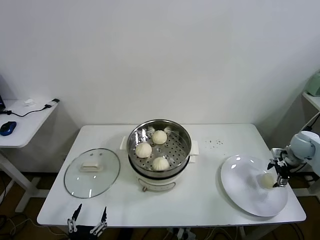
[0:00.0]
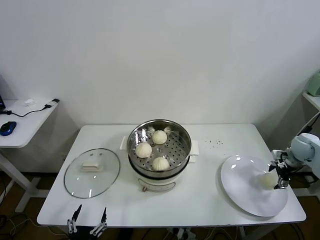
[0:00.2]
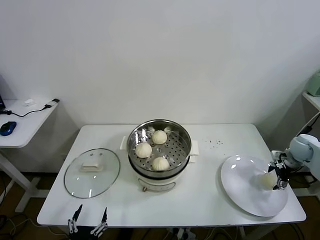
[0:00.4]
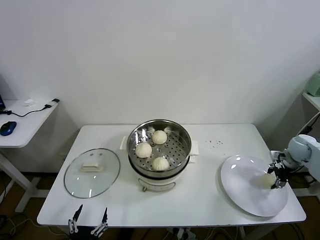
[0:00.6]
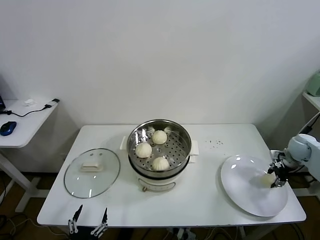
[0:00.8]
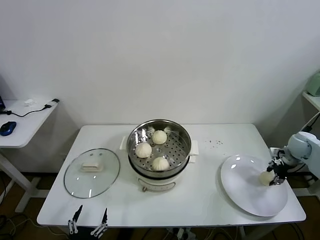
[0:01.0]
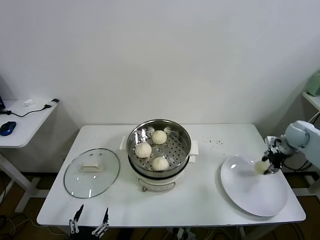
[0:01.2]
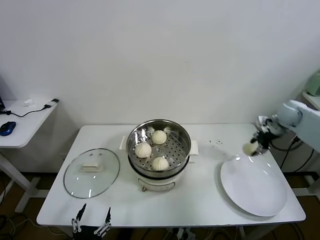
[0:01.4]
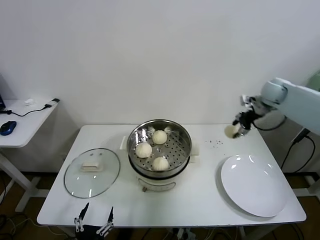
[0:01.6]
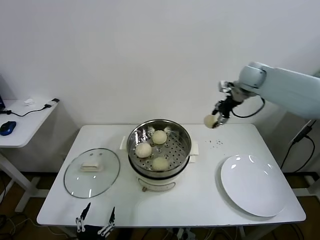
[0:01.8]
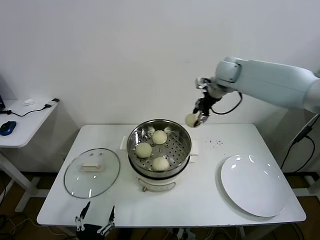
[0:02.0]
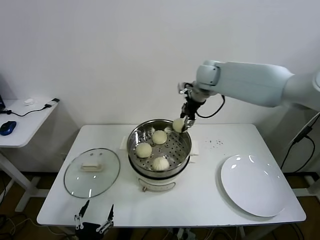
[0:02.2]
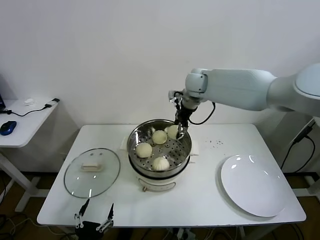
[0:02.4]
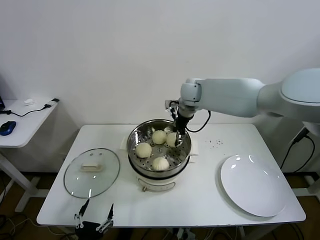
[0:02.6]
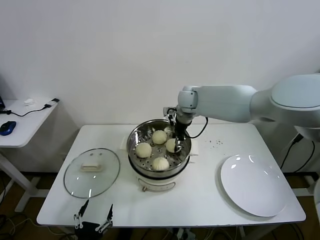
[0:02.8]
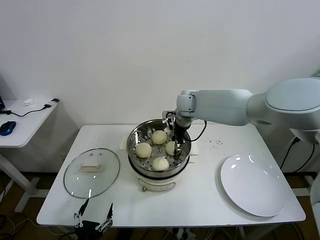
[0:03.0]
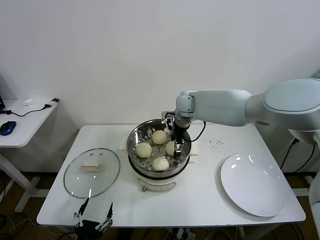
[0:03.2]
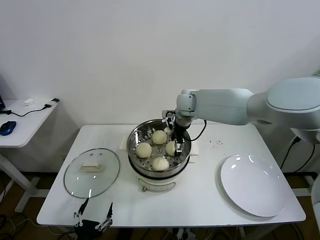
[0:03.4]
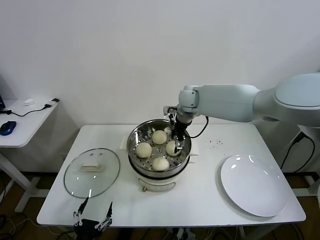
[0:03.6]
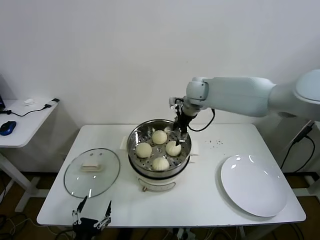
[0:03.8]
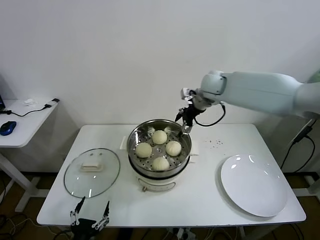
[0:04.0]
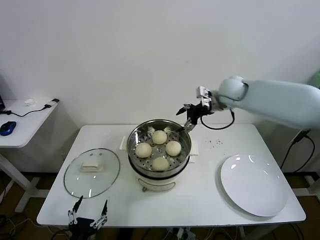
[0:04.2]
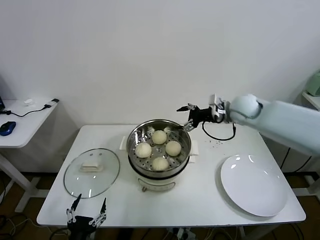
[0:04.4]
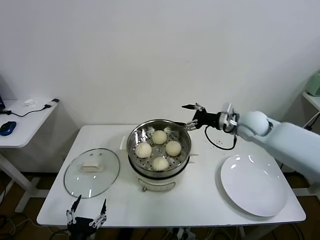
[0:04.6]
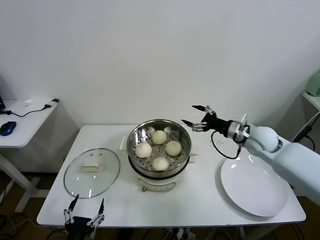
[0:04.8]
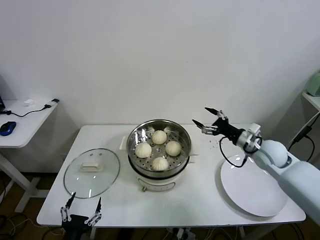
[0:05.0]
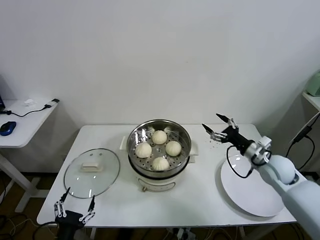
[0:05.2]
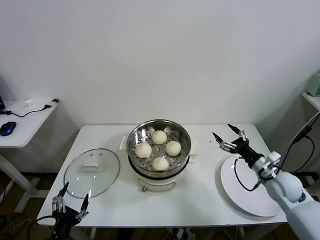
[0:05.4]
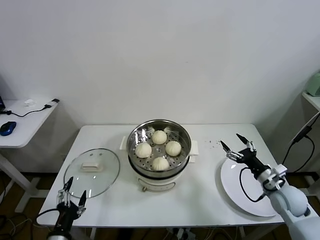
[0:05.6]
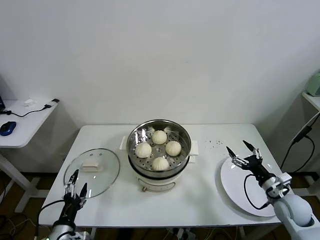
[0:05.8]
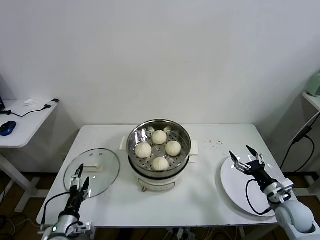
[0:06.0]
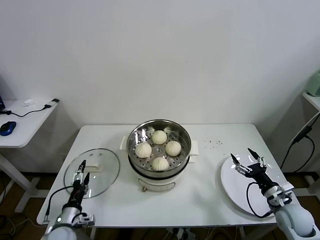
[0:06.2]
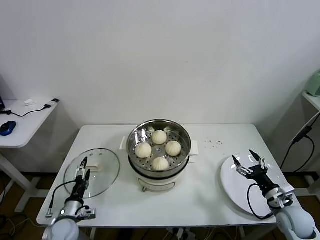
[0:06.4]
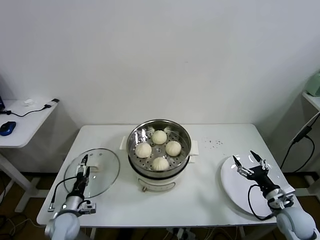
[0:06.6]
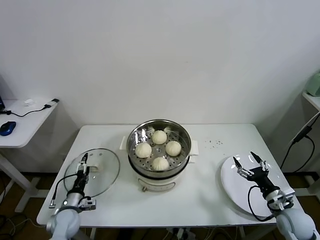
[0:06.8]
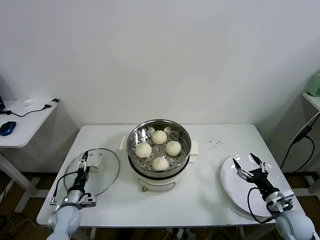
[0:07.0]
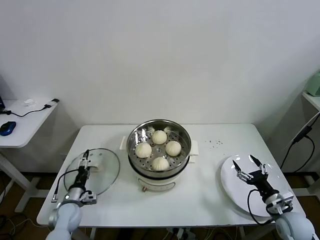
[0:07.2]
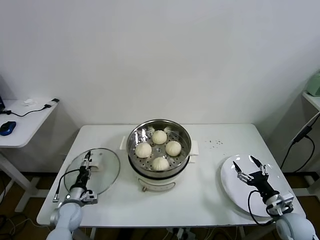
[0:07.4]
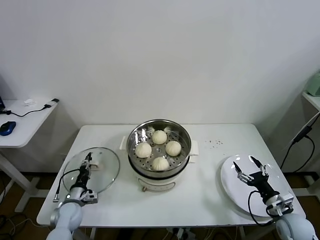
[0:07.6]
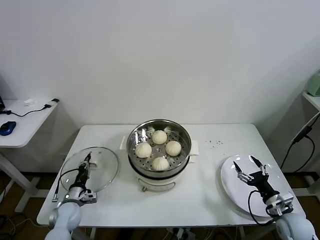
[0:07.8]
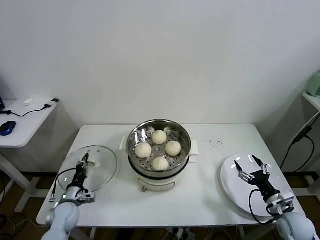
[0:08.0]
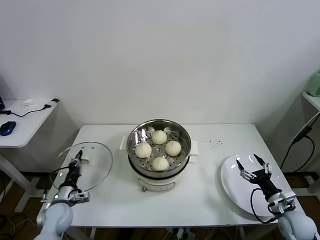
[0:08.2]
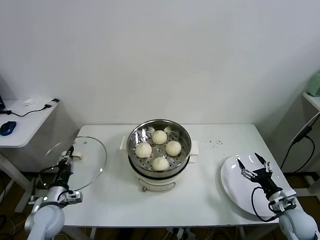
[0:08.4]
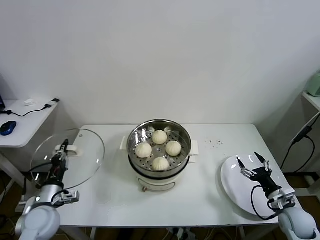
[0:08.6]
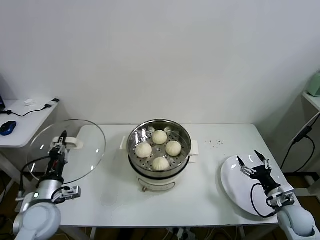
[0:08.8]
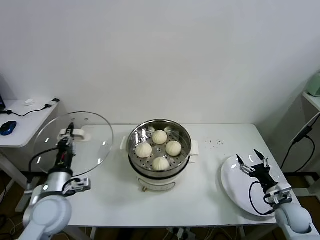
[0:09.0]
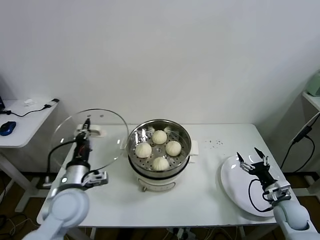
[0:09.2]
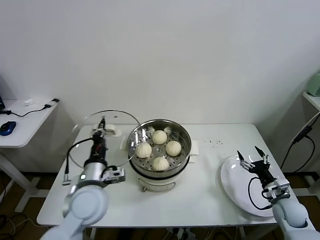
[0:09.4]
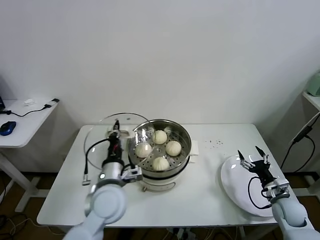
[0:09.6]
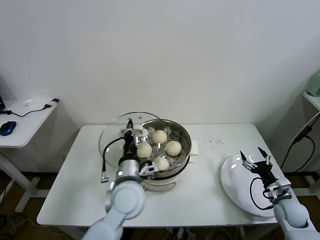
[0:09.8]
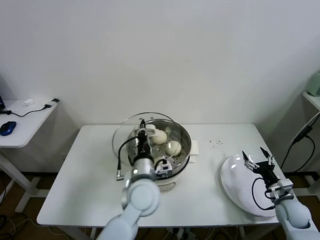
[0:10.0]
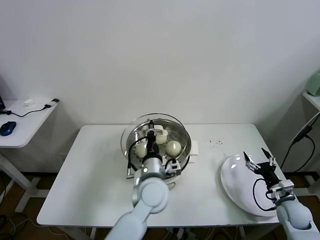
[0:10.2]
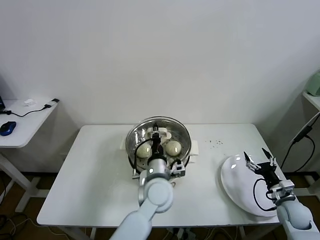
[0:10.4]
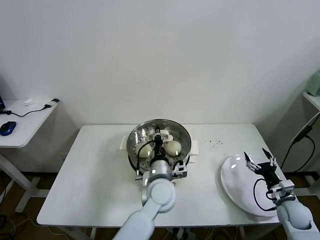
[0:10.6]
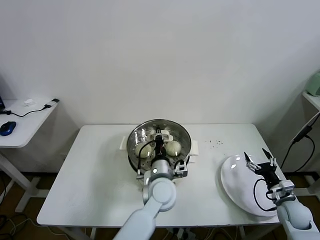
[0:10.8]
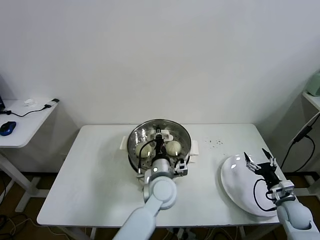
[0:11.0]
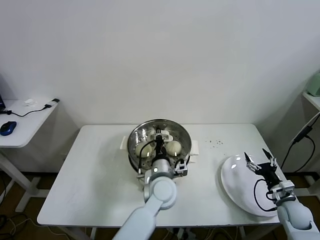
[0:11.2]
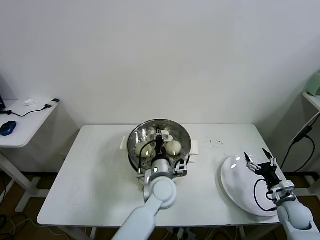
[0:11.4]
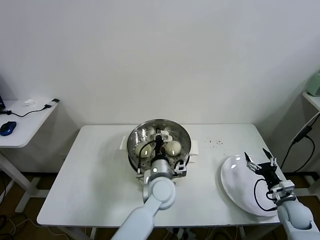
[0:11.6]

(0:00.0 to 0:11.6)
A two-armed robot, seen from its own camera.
Task of the whole recording: take steamed baozi put them in steamer.
Step, 0:00.8 - 0:03.4: Place the baozi on the steamer with right gripper.
Step, 0:03.8 - 0:07.8: Grasp the pot lid with left gripper.
0:00.0 - 0:01.4: The right gripper heads upward, forward and to the left, covering roughly 15 cm, and closes.
0:01.4 - 0:02.8: The right gripper shifts approximately 35 cm to the left.
0:02.8 - 0:04.4: The right gripper goes some 20 cm to the right and backward, and opens its fingers.
0:04.4 - 0:05.8: The right gripper shifts approximately 35 cm backward, downward and to the right, while the left gripper travels forward by some 5 cm.
0:05.8 - 0:07.2: The right gripper moves approximately 5 cm. The left gripper moves forward and downward, some 20 cm.
0:07.2 - 0:08.8: The left gripper travels upward by approximately 15 cm, and closes up.
0:08.8 - 0:10.2: The left gripper heads to the right, covering roughly 30 cm.
0:10.2 - 0:11.6: The left gripper shifts by some 5 cm.

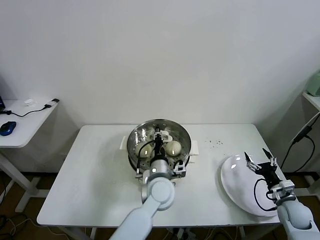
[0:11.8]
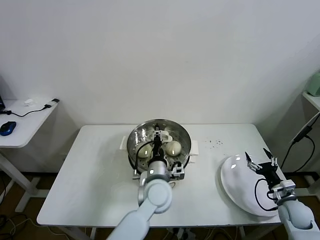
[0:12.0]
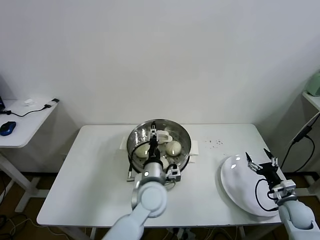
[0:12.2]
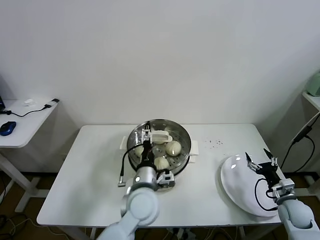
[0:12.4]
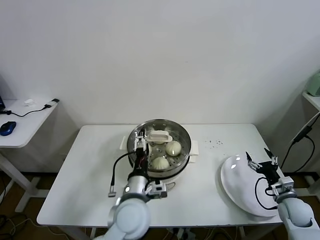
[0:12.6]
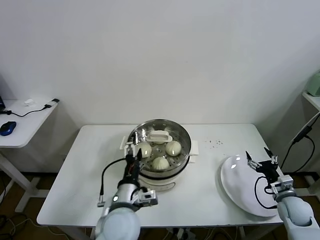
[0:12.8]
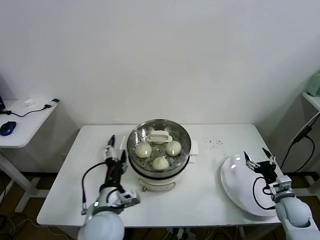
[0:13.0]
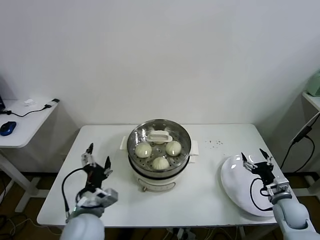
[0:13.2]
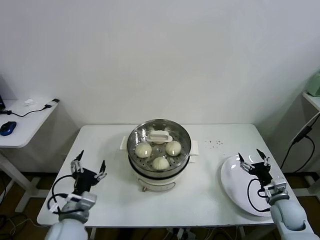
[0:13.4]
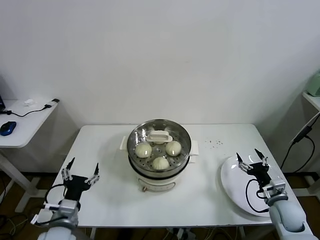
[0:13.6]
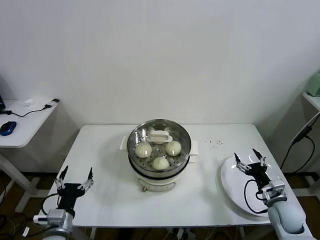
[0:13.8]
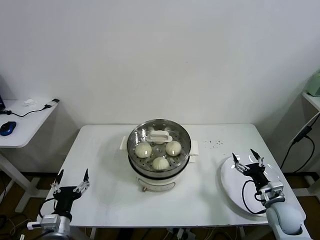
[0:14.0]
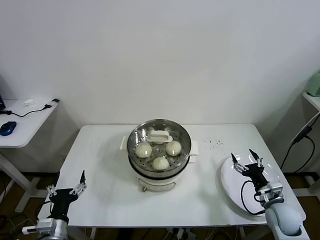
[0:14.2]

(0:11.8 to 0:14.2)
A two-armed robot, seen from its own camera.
Task of the whole recording: take steamed baozi put them in steamer.
0:11.8 - 0:13.0: The left gripper travels to the left and backward by some 15 cm, and opens.
0:13.0 - 0:14.2: The right gripper goes approximately 5 cm to the left; the left gripper travels to the left and downward by approximately 20 cm.

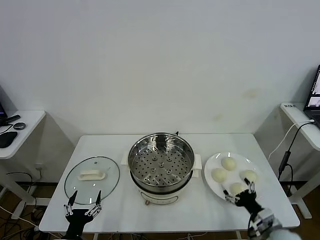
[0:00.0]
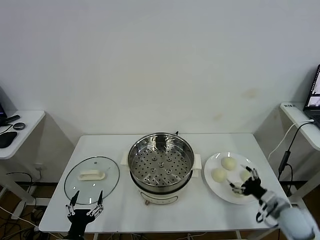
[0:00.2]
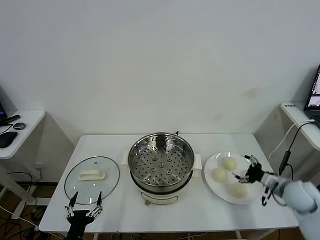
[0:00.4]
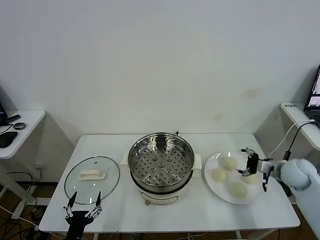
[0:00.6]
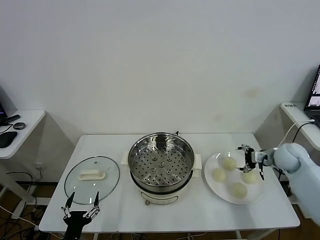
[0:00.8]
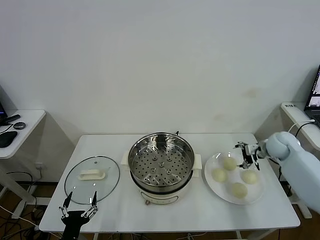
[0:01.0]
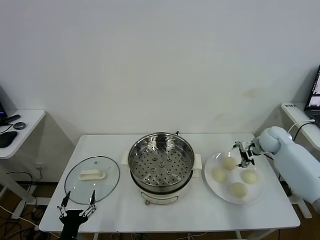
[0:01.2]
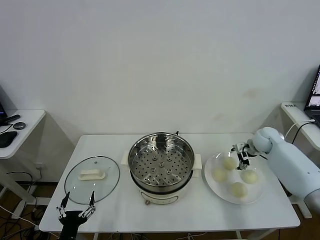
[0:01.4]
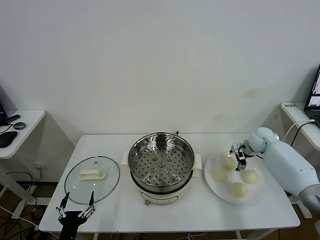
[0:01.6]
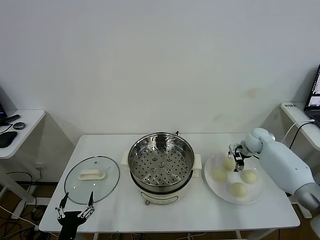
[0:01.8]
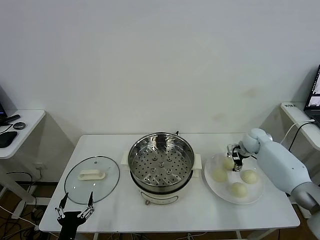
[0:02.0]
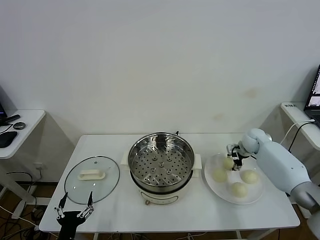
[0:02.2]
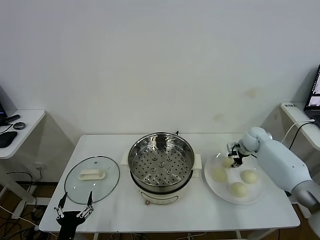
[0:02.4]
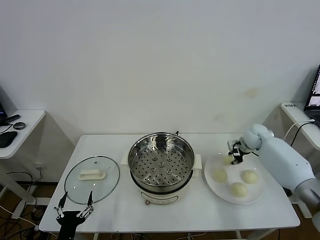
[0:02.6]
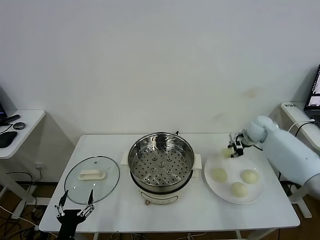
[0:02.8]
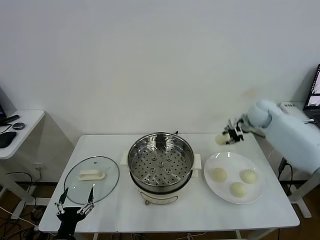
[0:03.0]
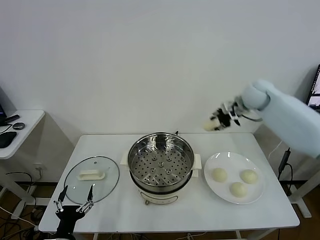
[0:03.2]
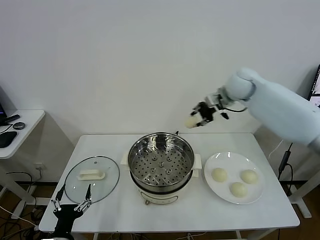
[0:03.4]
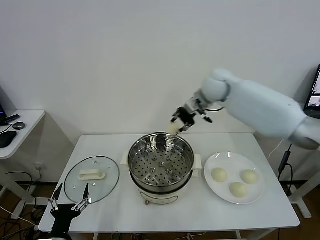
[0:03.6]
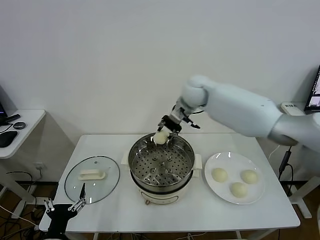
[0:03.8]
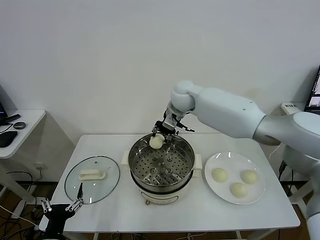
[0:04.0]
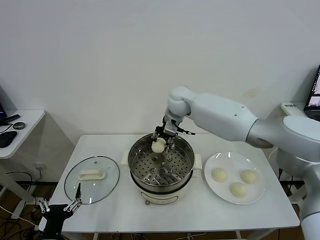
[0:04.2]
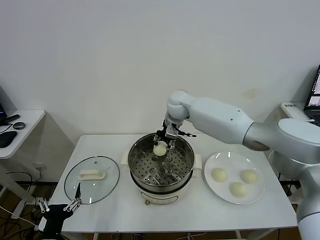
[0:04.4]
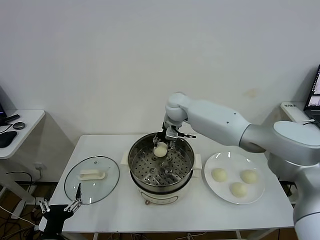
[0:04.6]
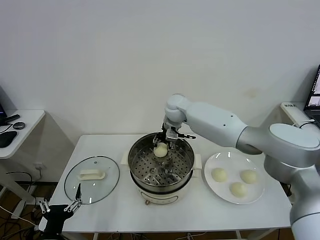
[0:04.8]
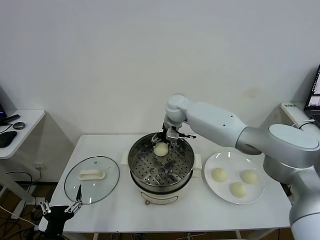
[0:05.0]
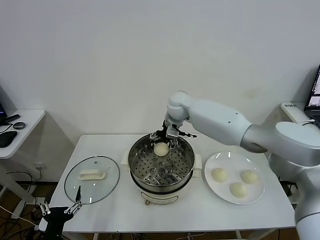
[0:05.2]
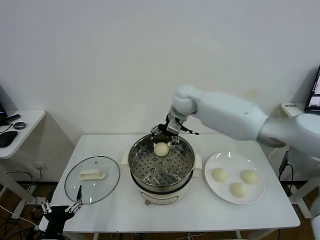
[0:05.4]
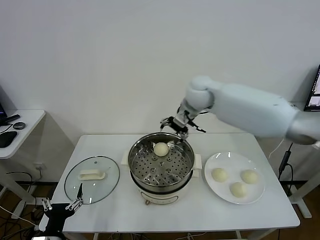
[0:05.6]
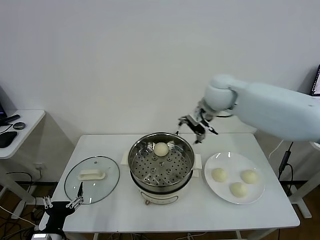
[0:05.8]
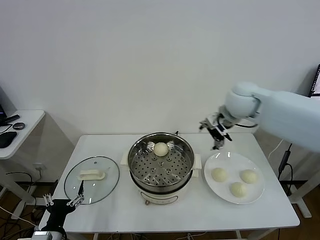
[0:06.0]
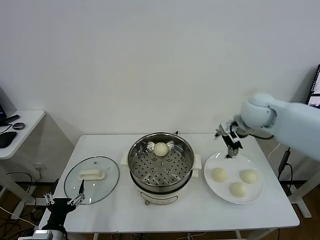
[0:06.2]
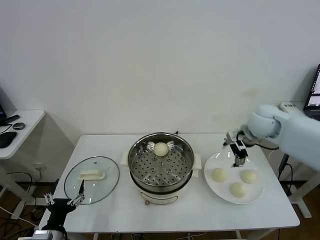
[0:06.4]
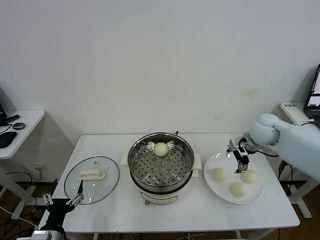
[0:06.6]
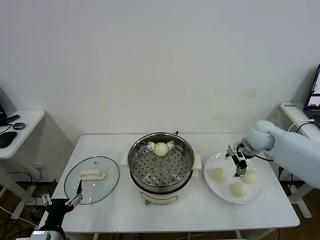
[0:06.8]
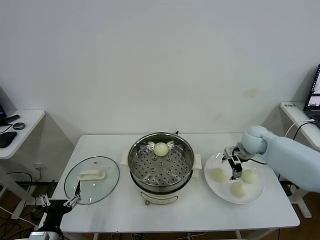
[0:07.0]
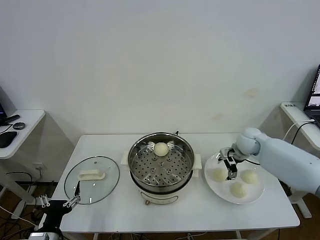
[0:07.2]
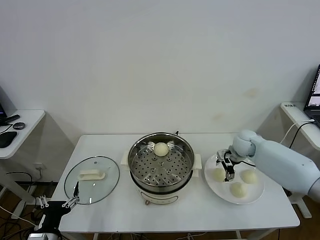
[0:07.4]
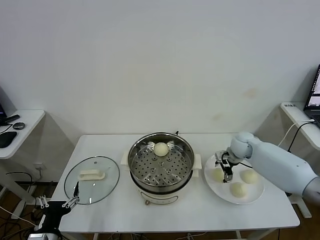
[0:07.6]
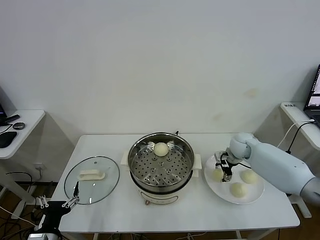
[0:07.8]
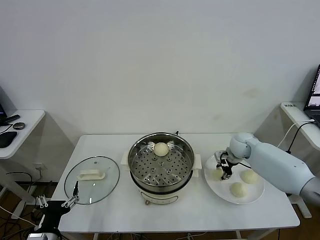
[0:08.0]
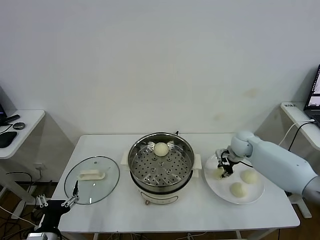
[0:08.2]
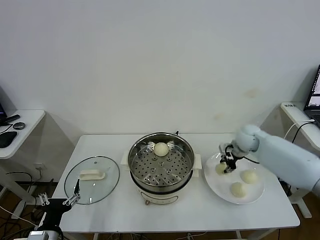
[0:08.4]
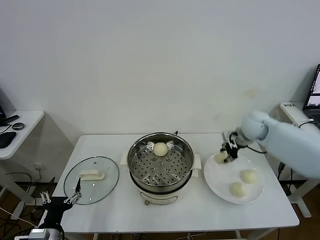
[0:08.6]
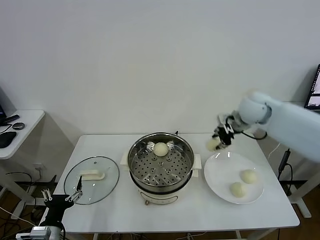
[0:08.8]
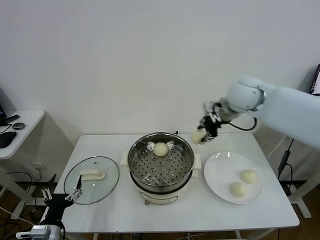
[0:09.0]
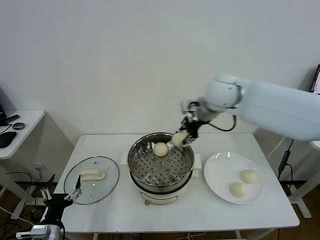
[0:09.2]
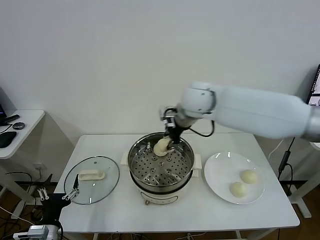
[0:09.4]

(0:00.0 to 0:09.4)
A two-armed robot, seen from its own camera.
Task of the whole recording: take steamed baozi put them in steamer.
Step, 0:00.0 - 0:02.2: Grasp the baozi in the plate with right gripper.
Step, 0:02.4 - 0:05.0: Place the baozi on the steamer with right gripper.
Step, 0:05.4 - 0:07.8: Grasp the baozi in the plate with right gripper.
0:01.6 - 0:03.2: The right gripper shifts some 20 cm upward and to the left, and closes.
0:03.2 - 0:04.8: The right gripper is displaced to the left by roughly 25 cm.
0:04.8 - 0:06.2: The right gripper heads to the right and backward, covering some 25 cm, and opens its fingers.
0:06.2 - 0:07.8: The right gripper goes some 20 cm downward.
0:07.8 - 0:09.4: The right gripper shifts about 30 cm upward and to the left, and closes.
